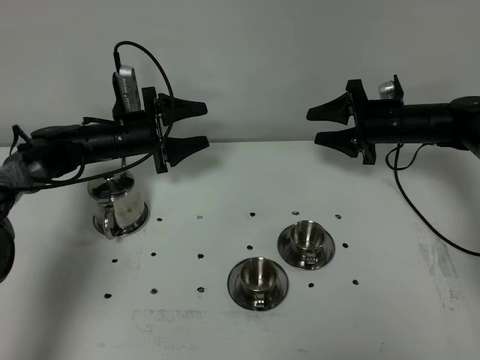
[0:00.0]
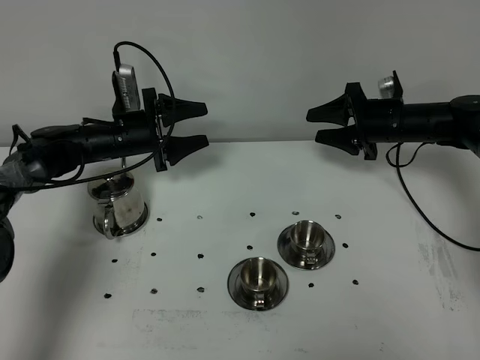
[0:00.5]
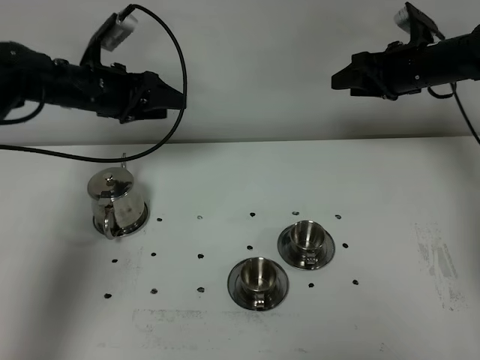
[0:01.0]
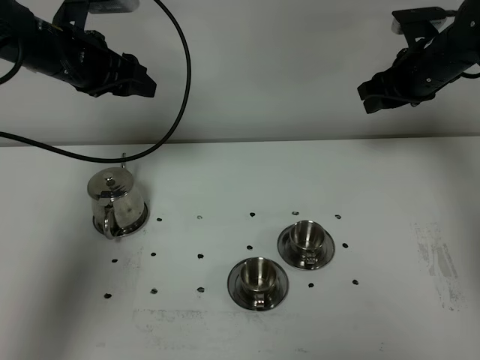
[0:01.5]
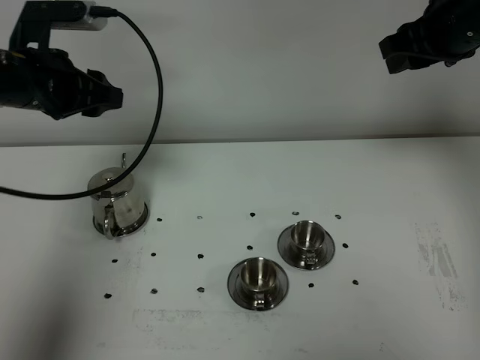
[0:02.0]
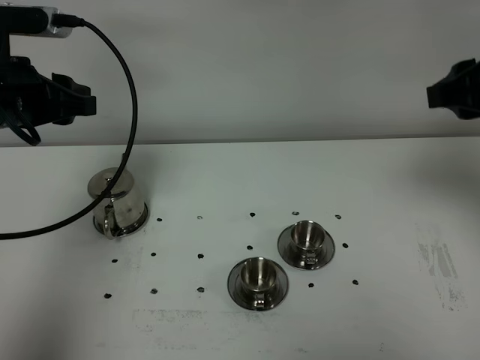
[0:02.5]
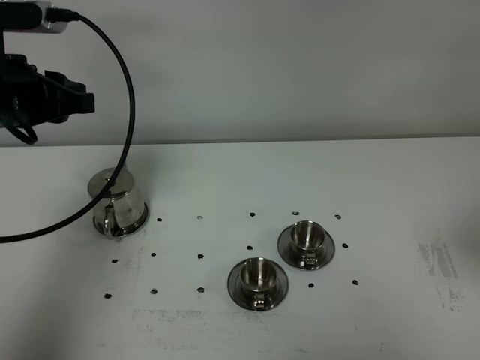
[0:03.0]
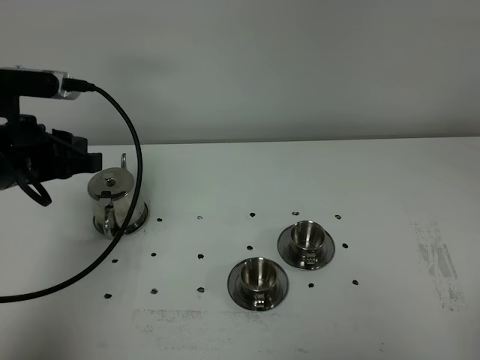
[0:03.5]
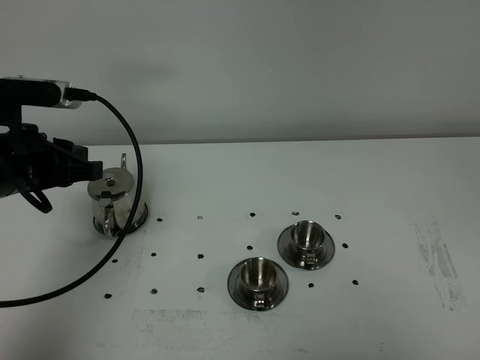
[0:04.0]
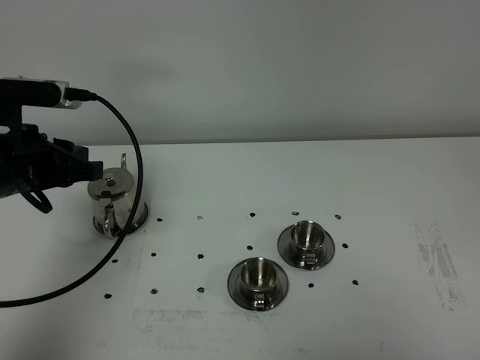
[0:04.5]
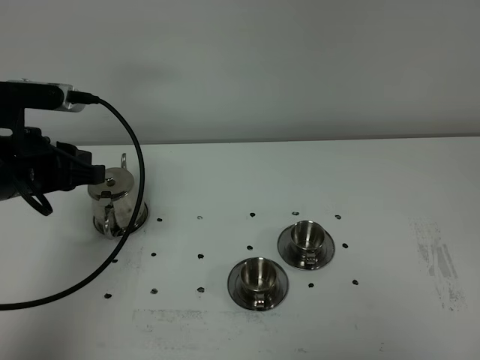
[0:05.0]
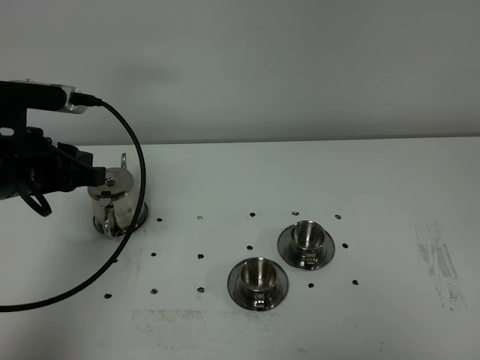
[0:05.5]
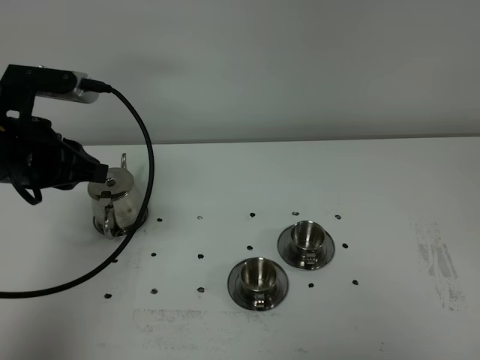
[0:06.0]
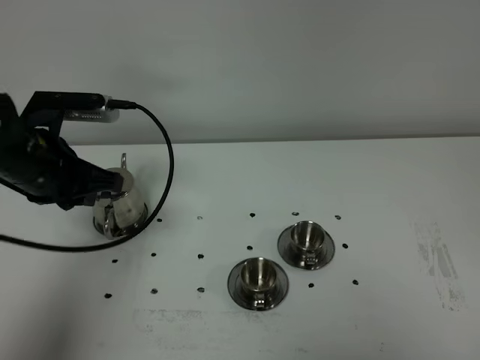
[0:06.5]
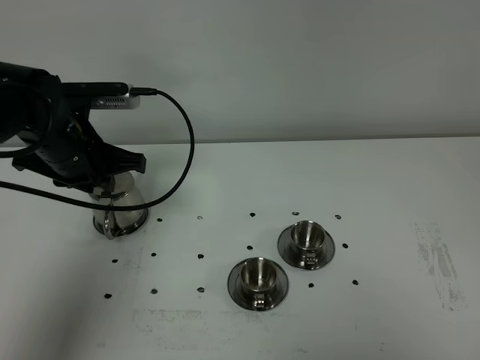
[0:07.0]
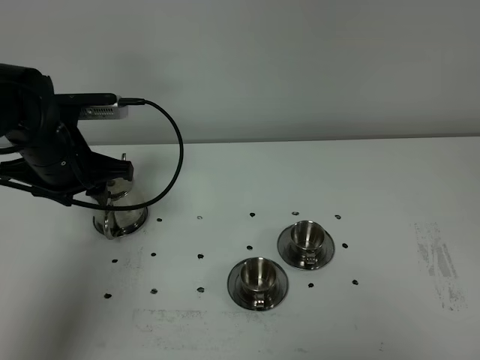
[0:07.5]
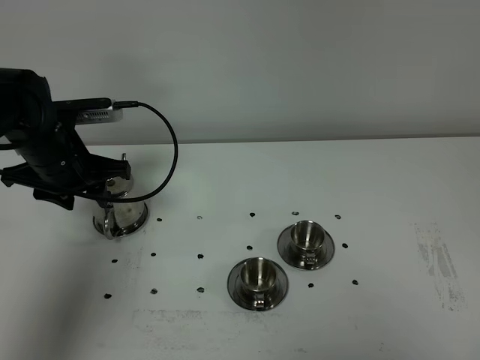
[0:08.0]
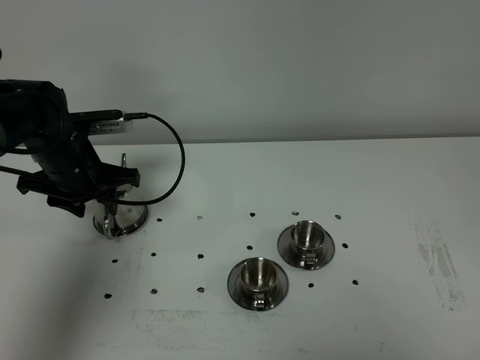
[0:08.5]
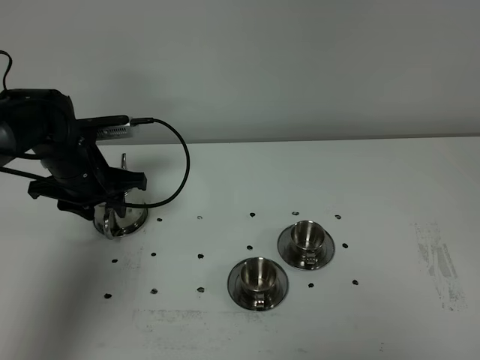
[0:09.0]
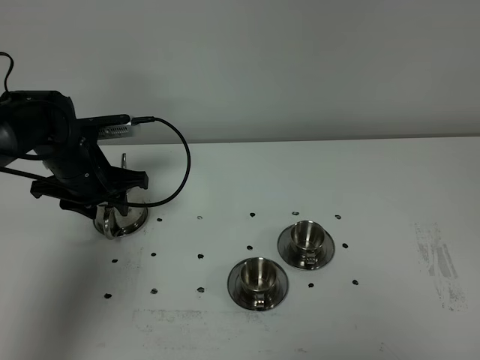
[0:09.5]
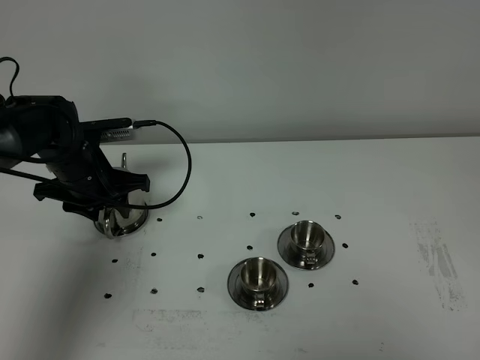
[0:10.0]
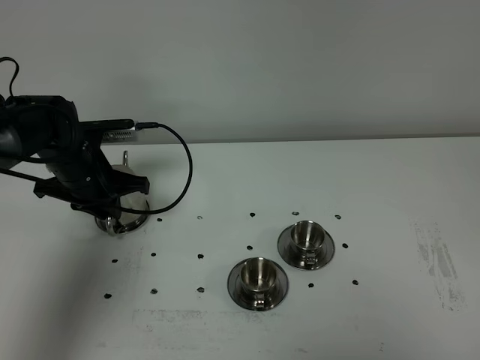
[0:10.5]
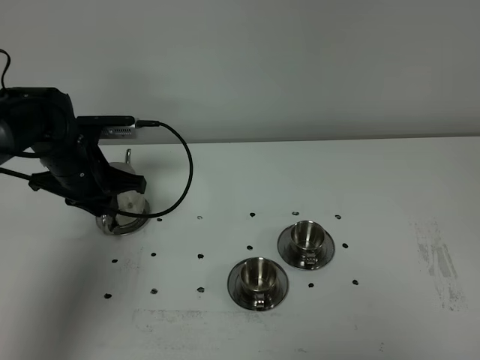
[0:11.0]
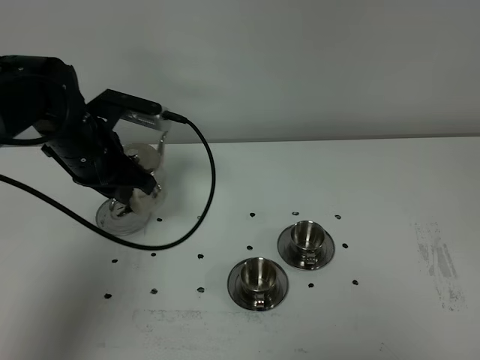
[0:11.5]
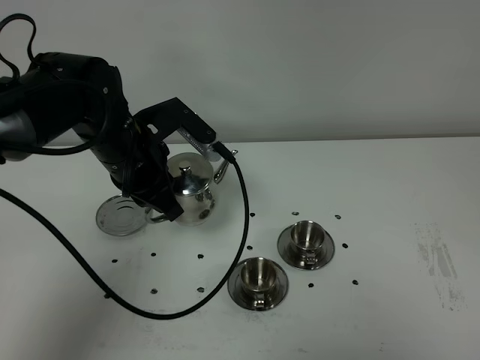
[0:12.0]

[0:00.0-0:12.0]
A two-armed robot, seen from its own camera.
Task of the whole recording: grasp the stainless steel teapot and pour the tea into the two stainless steel teacups one by one, put the stainless steel teapot back in its original place.
Step, 0:00.0 to 0:11.0: Pick up the teapot with the left gripper.
0:00.0 to 0:02.0: The two grippers go about 25 cm upward and backward.
0:02.0 to 0:04.0: The left gripper shifts roughly 10 cm backward and downward, and closes; the right gripper shifts some 40 cm backward.
0:04.0 to 0:06.0: The grippers make only small movements.
0:06.0 to 0:08.0: The left gripper shifts roughly 10 cm forward and downward, and opens up.
0:08.0 to 0:10.0: The left gripper heads downward, covering some 5 cm.
0:10.0 to 0:12.0: The left gripper heads to the right, upward and backward, covering some 15 cm, and closes its fingers.

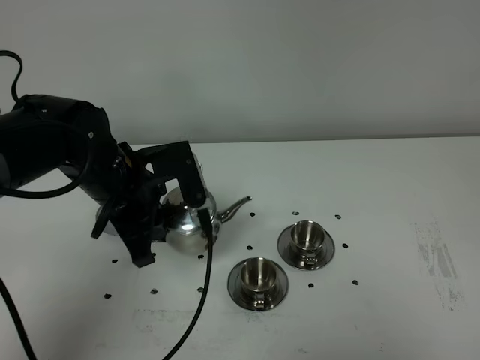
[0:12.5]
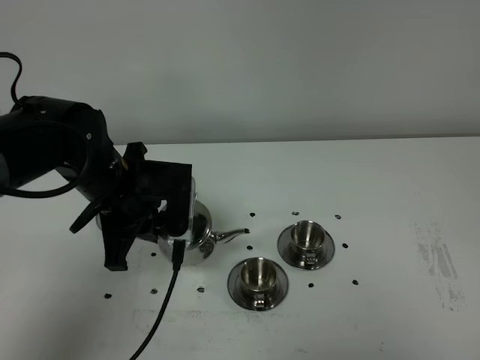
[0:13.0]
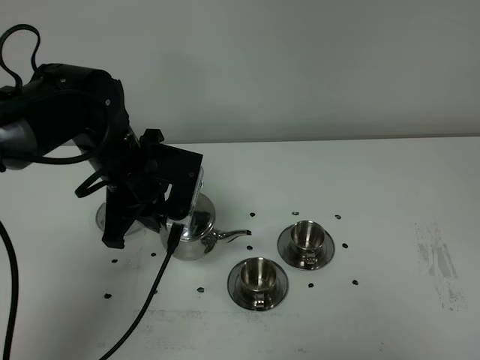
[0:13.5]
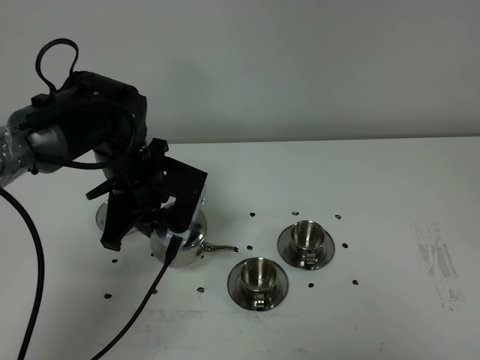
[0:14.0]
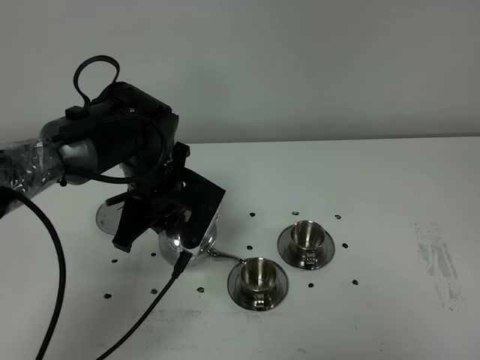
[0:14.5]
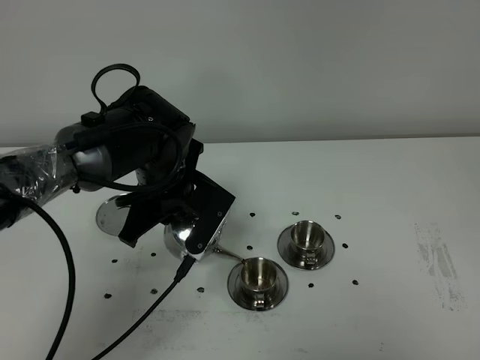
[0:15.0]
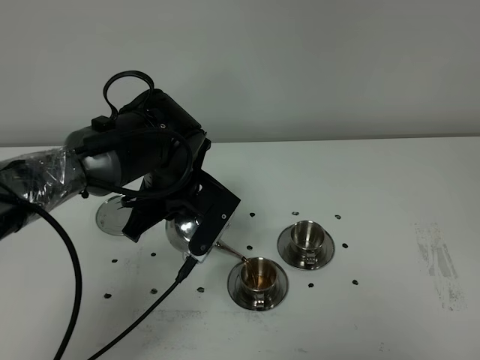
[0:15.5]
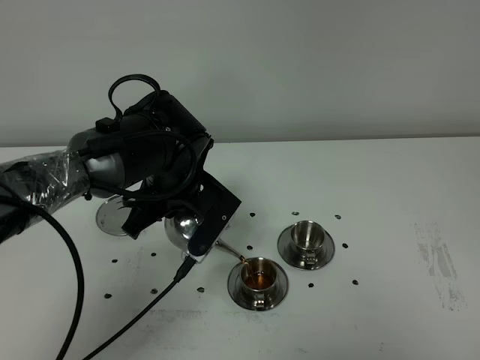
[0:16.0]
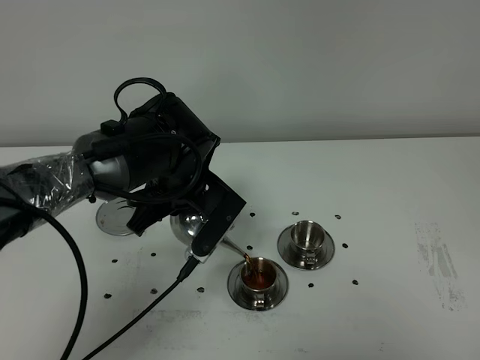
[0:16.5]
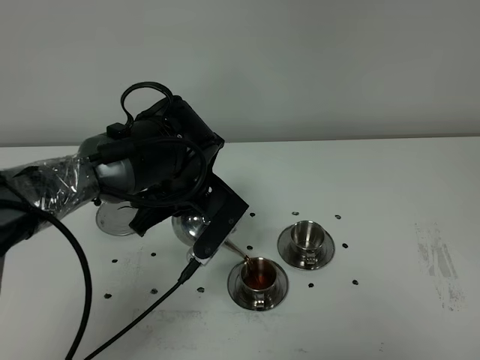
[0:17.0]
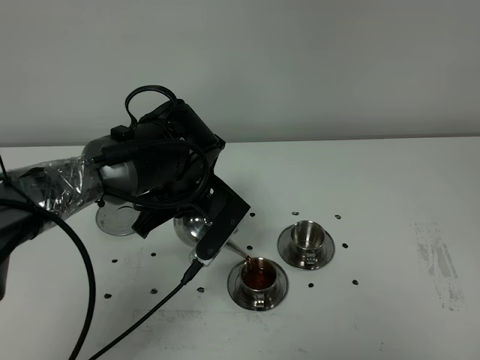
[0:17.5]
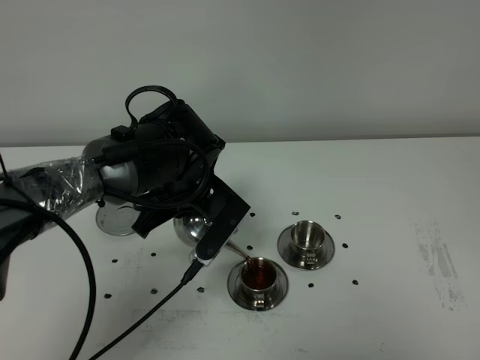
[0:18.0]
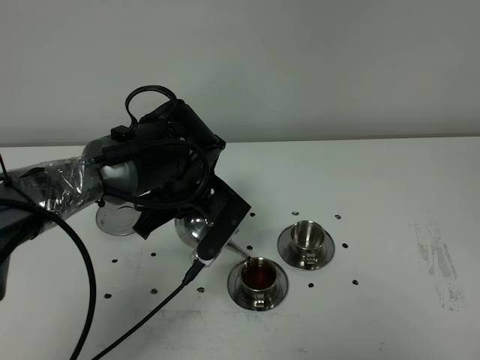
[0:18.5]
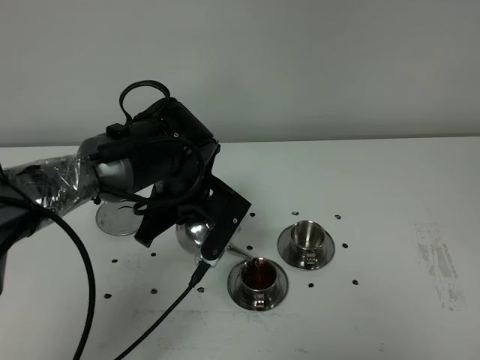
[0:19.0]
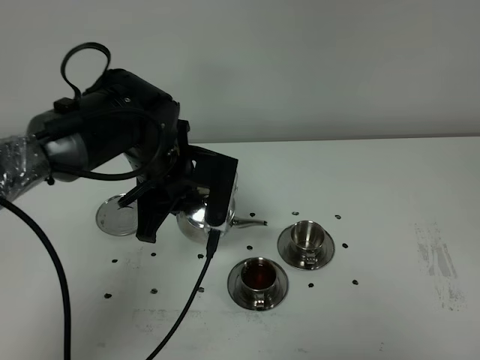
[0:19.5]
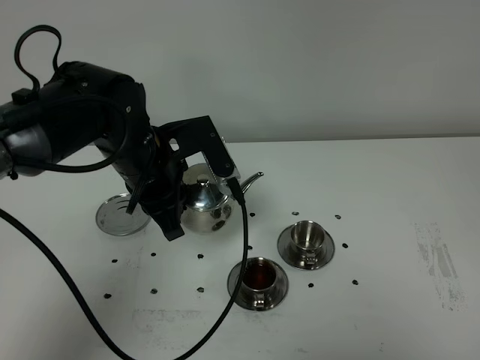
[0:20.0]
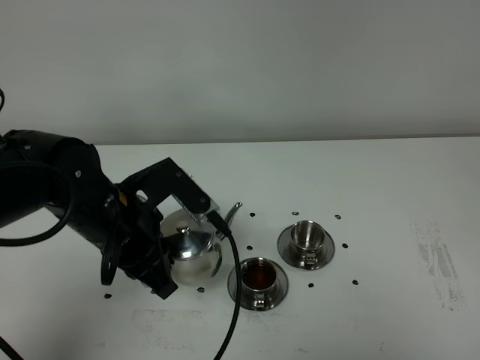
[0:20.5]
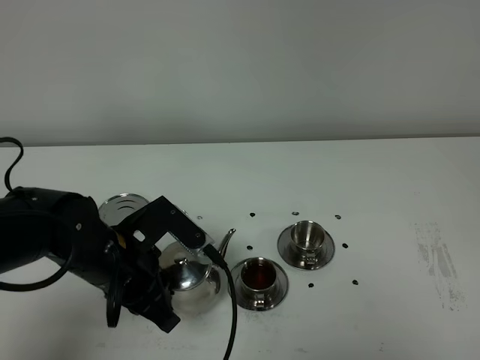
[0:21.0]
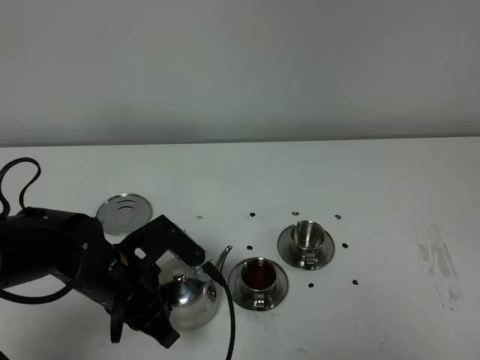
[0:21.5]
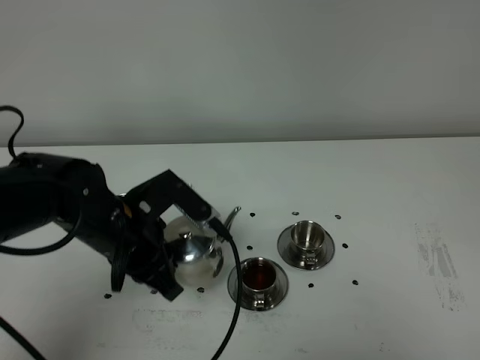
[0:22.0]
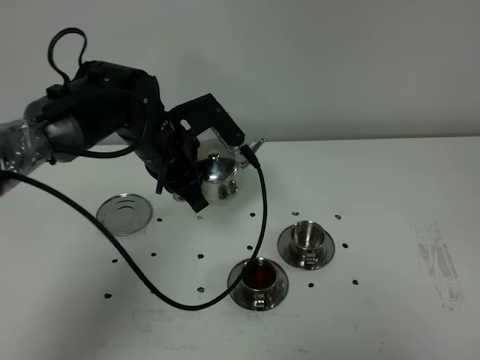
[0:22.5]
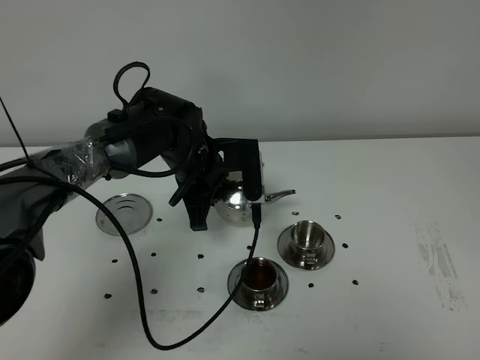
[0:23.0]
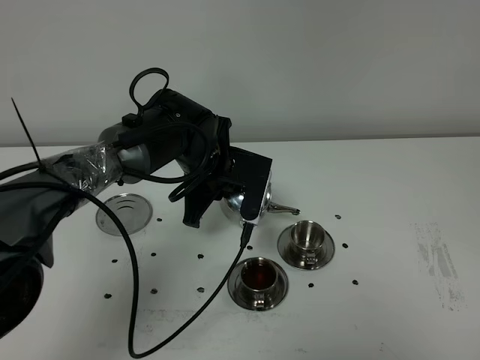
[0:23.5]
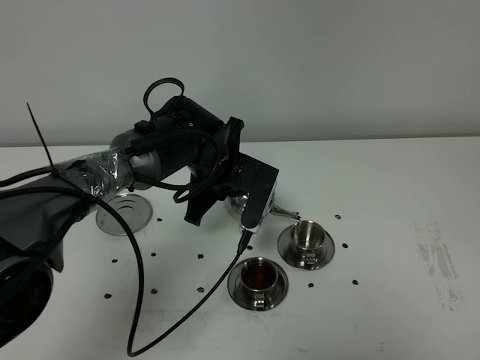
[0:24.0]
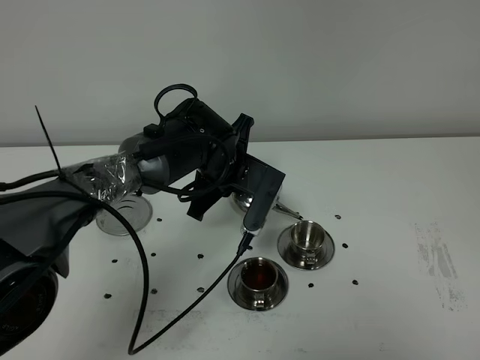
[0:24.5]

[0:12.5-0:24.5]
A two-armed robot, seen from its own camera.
Task of the whole recording: grasp the stainless steel teapot and pour the tea into the two stainless steel teacups one by one, put the stainless steel teapot back in its original place.
0:12.5 to 0:14.5: The left gripper ends up about 5 cm from where it was.
0:14.5 to 0:16.5: The grippers move only a little.
0:16.5 to 0:18.5: Both grippers stay put.
0:18.5 to 0:20.5: The left gripper shifts some 10 cm backward and to the left.
0:20.5 to 0:22.5: The left gripper shifts some 15 cm forward.
0:22.5 to 0:24.5: The left gripper travels to the right by some 5 cm.

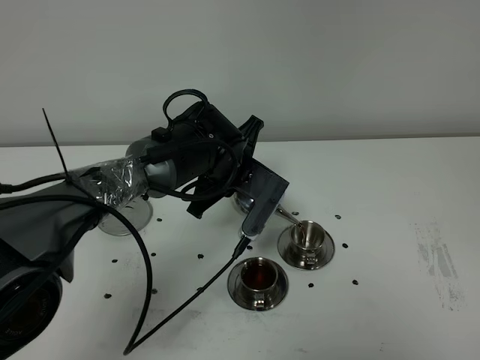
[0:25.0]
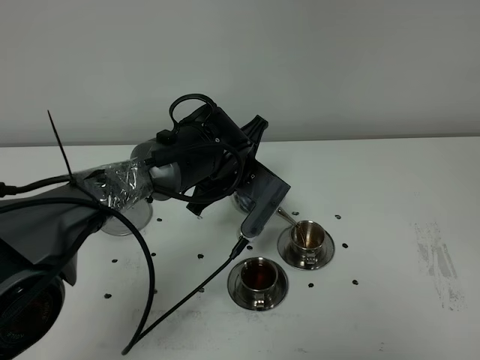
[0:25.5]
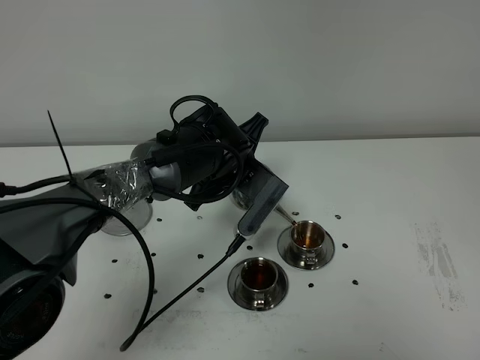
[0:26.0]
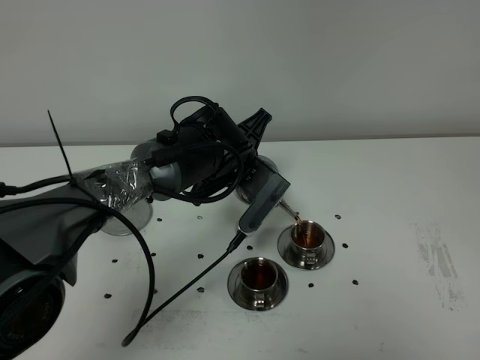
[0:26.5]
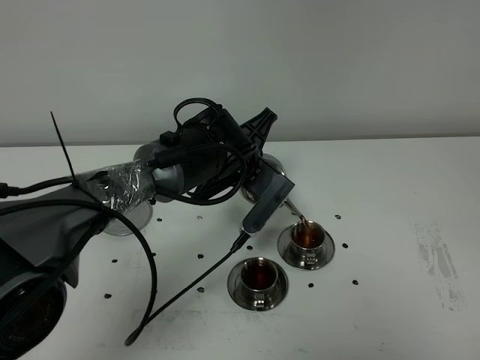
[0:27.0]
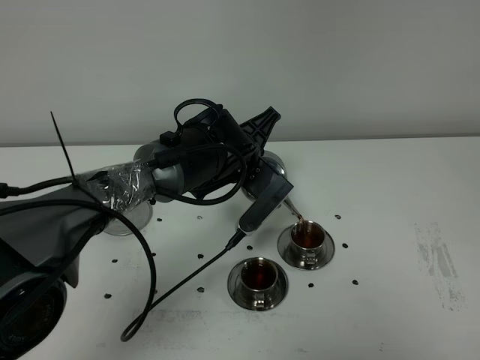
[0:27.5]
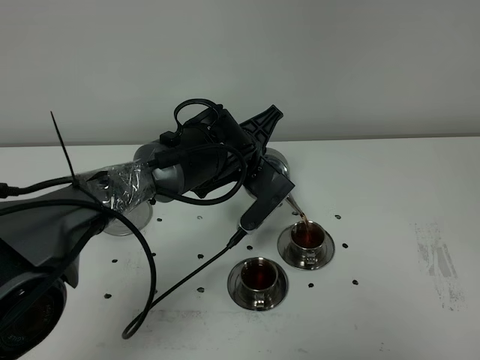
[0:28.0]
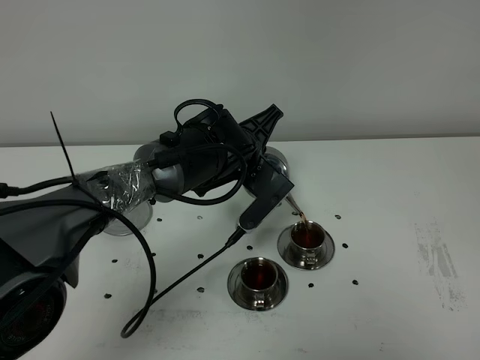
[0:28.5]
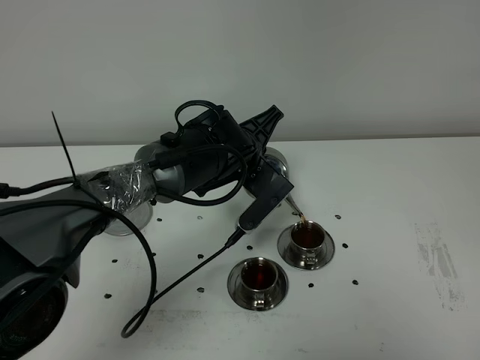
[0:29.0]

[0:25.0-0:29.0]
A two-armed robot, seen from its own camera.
Task of the whole recording: grasp the stainless steel teapot and pour the tea into the two stainless steel teacups one by one, put the stainless steel teapot back in its original place.
0:25.0 to 0:29.0: The grippers make only small movements.
